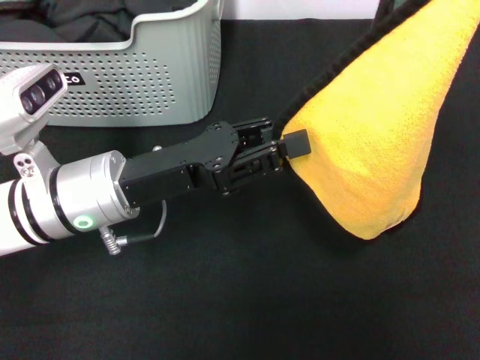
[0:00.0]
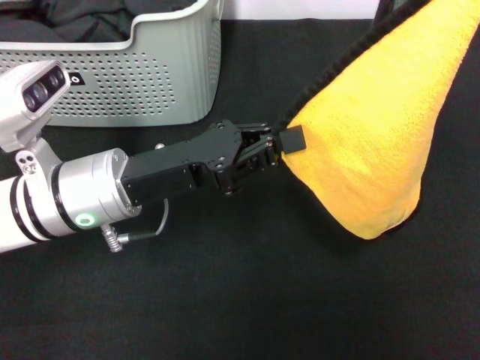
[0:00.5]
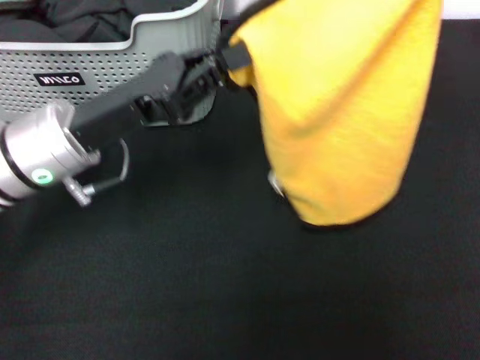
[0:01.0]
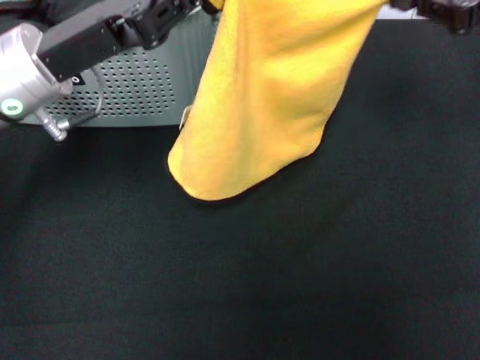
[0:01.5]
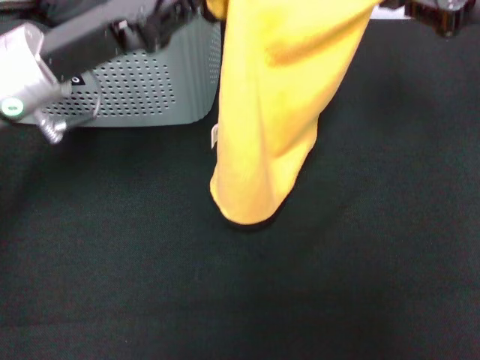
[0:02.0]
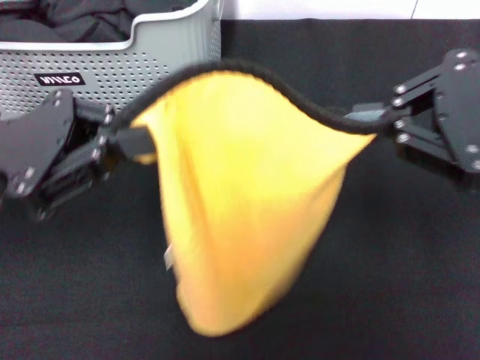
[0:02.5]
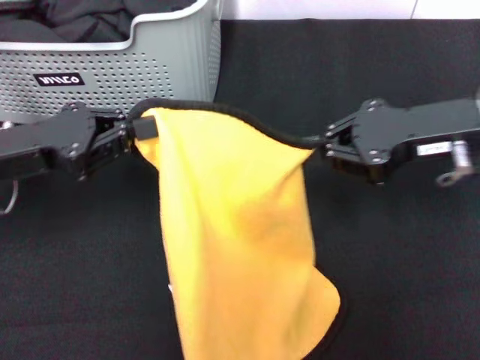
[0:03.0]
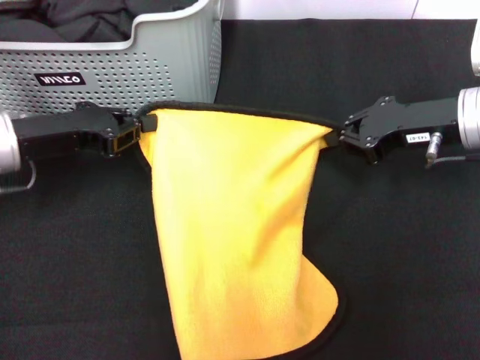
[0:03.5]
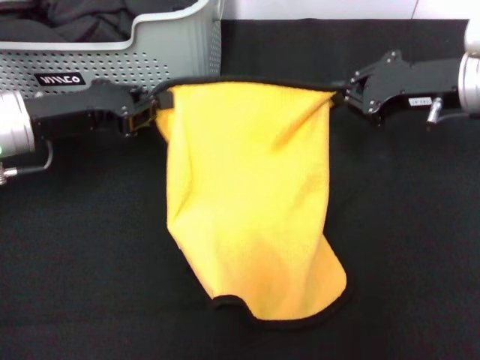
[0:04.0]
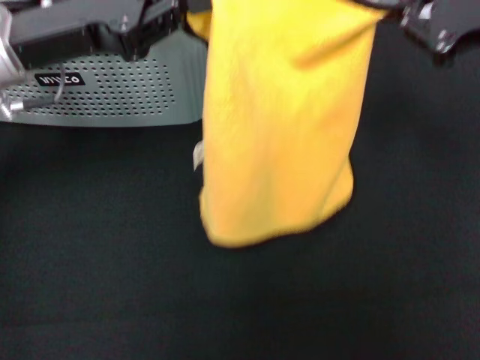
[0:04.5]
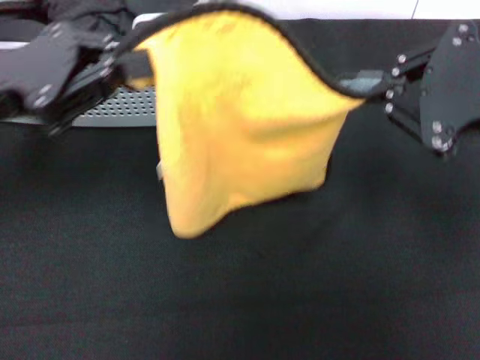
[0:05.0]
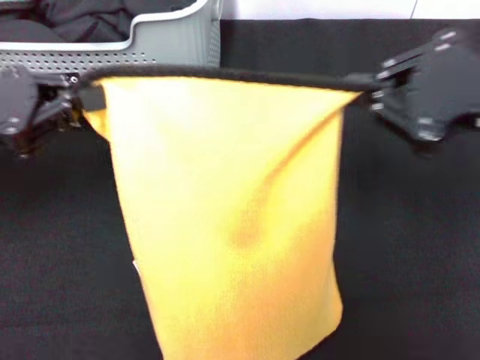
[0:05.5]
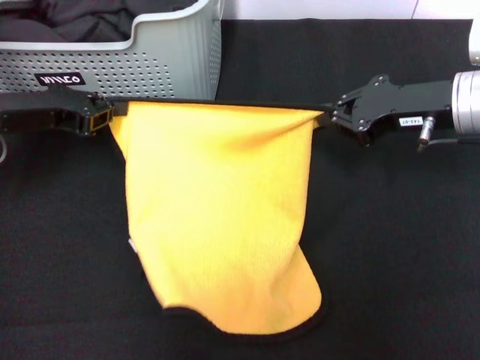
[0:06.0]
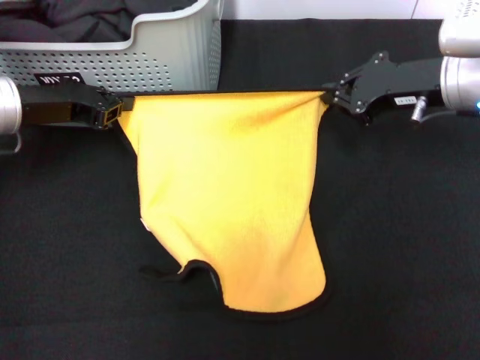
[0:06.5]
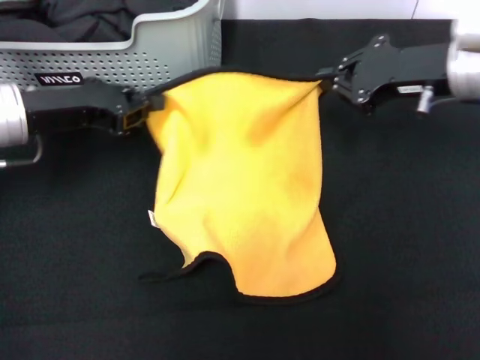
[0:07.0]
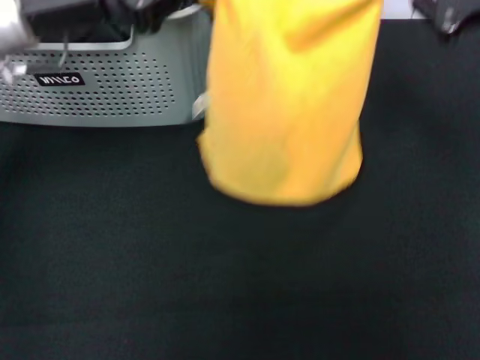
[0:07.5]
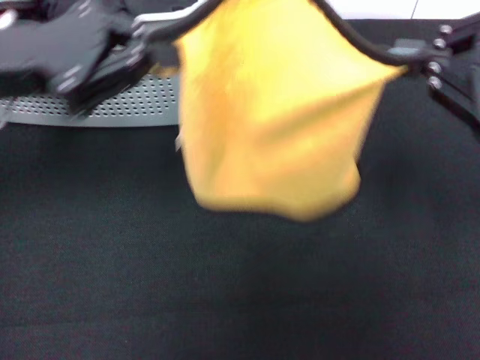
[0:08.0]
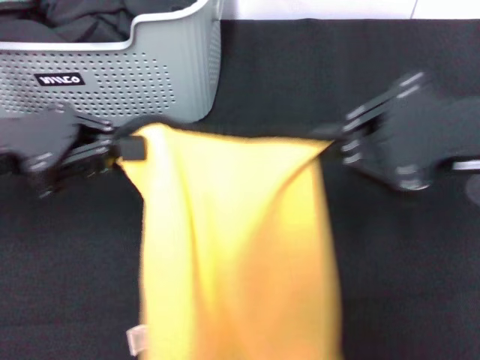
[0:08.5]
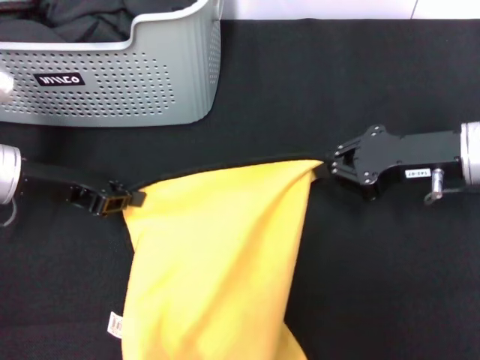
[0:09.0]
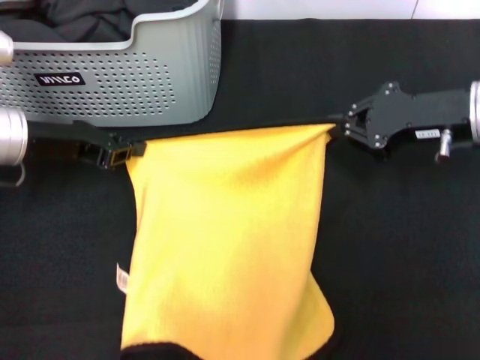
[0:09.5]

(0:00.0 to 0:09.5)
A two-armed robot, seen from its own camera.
Task of the whole recording: pick up the towel from the storage box and lay it flat on the black tablecloth.
0:00.0 - 0:02.0: The left gripper goes roughly 10 cm upward and forward, and closes. Meanwhile the right gripper shifts about 5 cm forward.
0:02.0 - 0:04.0: The left gripper moves to the left, approximately 5 cm, and moves some 10 cm backward and comes back. Meanwhile the right gripper shifts approximately 10 cm downward and to the left, and travels backward and back again, approximately 15 cm each way.
0:04.0 - 0:05.5: The right gripper travels backward and upward by approximately 15 cm; the left gripper heads backward, upward and to the left, covering about 10 cm.
0:05.5 - 0:07.5: The right gripper shifts roughly 5 cm forward. Meanwhile the left gripper goes about 10 cm to the right and forward.
0:07.5 - 0:09.5: The right gripper is displaced downward by roughly 10 cm. The left gripper travels downward and to the left by some 10 cm.

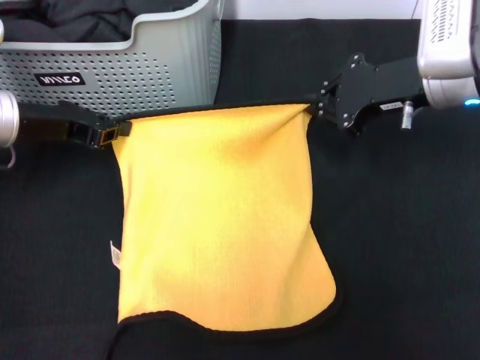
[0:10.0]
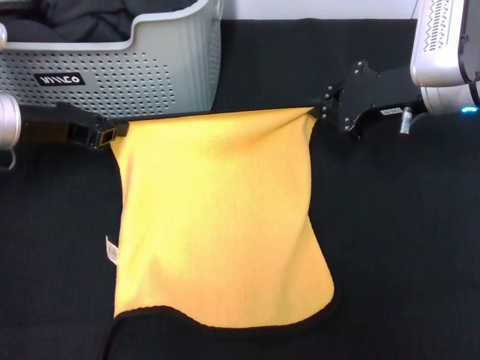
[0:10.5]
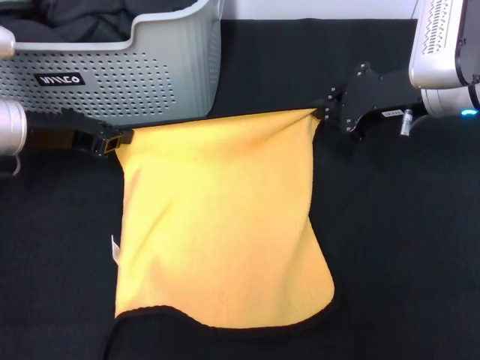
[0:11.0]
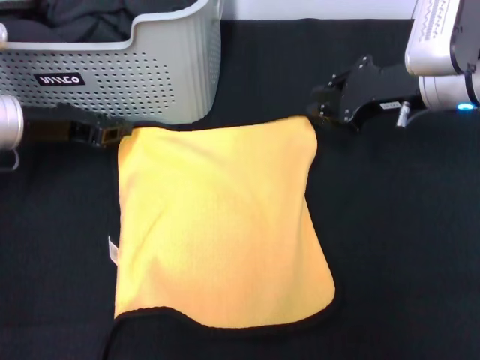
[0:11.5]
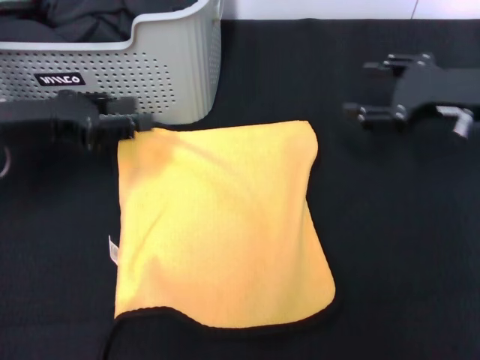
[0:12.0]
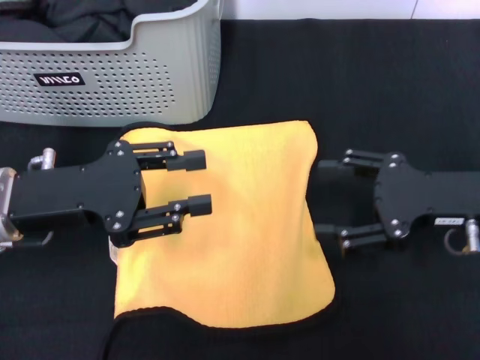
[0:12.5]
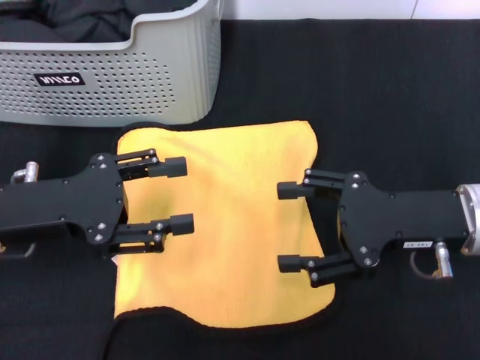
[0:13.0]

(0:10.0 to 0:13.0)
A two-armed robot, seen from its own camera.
Task of the whole recording: pick up the towel from the storage box and lay it flat on the black tablecloth.
0:10.0 - 0:11.5: The grippers move only a little.
0:11.5 - 0:13.0: Both grippers travel together backward, about 10 cm. The right gripper opens its fingers, while the left gripper opens its fingers.
